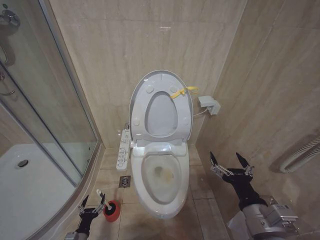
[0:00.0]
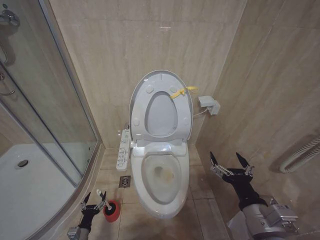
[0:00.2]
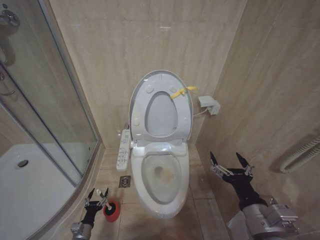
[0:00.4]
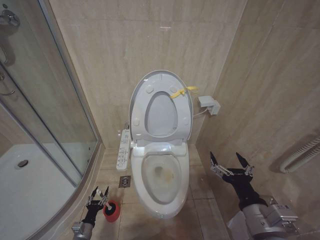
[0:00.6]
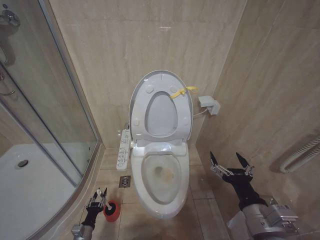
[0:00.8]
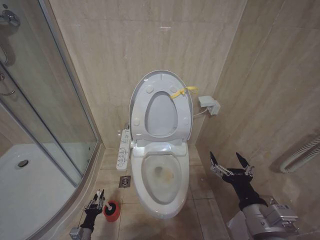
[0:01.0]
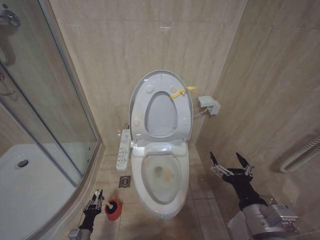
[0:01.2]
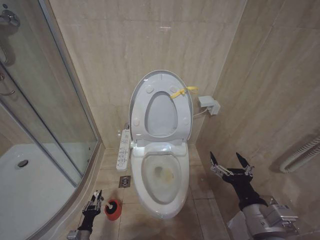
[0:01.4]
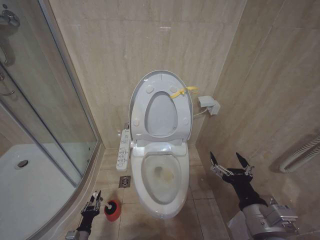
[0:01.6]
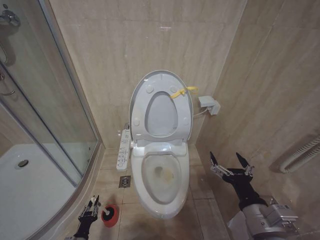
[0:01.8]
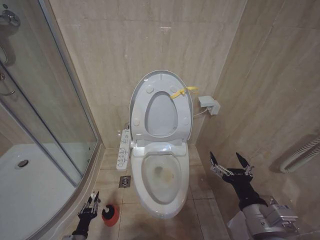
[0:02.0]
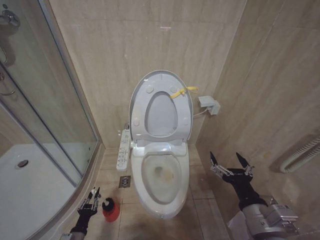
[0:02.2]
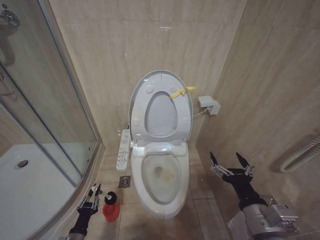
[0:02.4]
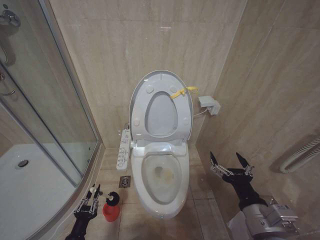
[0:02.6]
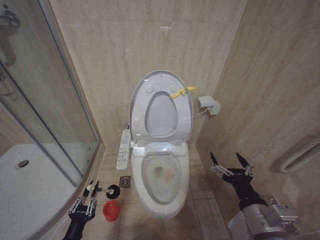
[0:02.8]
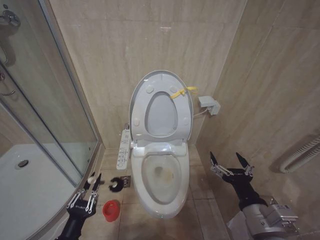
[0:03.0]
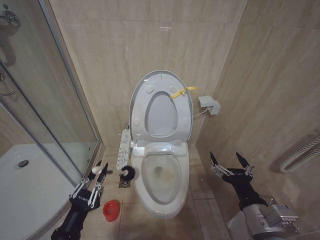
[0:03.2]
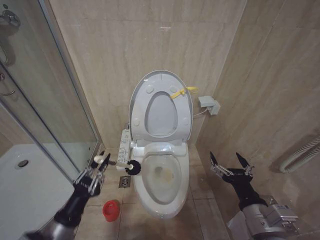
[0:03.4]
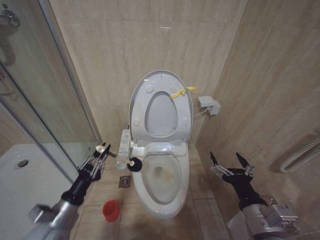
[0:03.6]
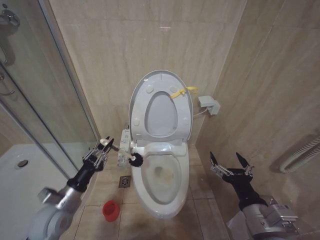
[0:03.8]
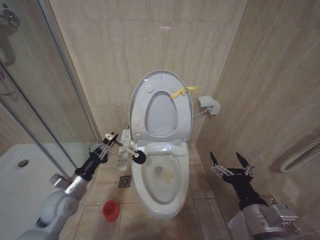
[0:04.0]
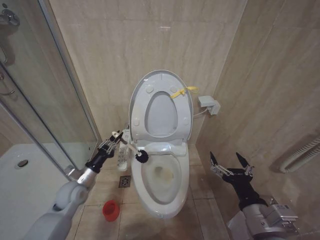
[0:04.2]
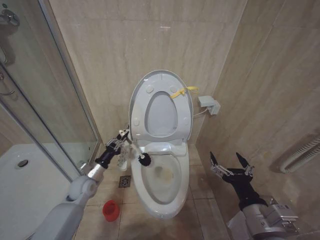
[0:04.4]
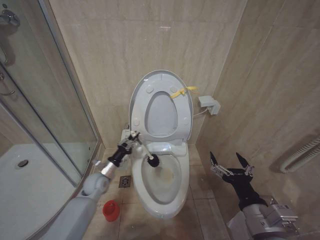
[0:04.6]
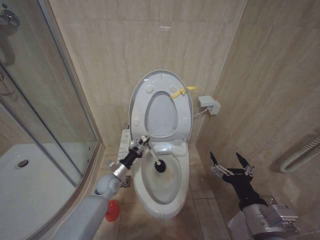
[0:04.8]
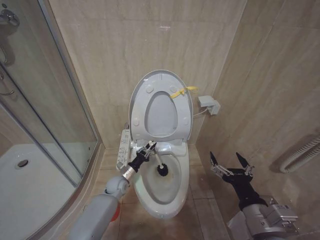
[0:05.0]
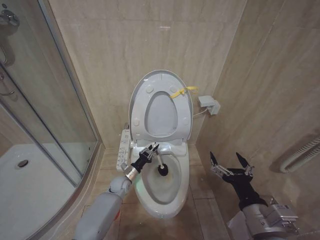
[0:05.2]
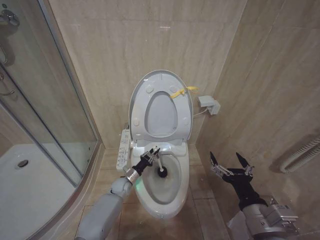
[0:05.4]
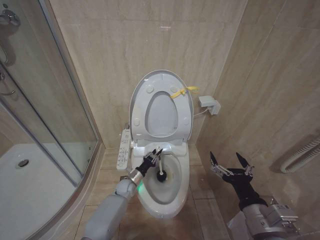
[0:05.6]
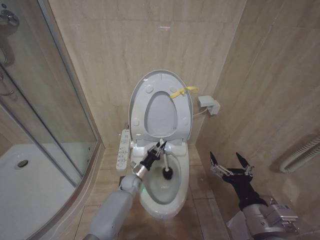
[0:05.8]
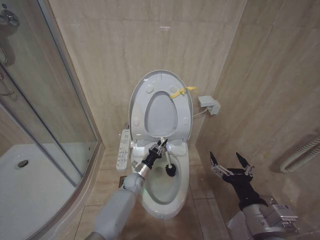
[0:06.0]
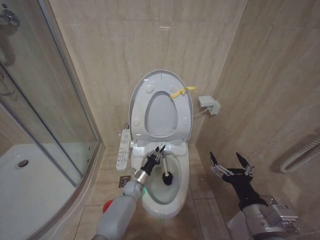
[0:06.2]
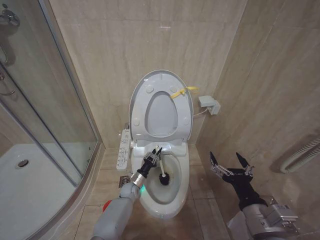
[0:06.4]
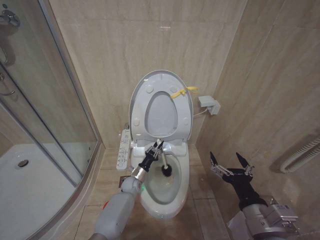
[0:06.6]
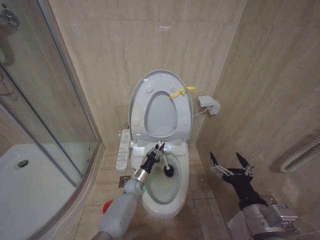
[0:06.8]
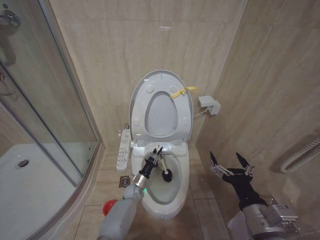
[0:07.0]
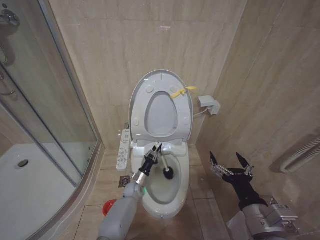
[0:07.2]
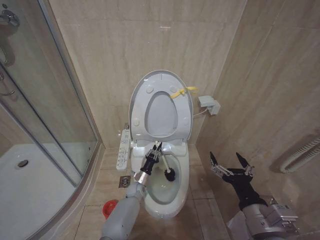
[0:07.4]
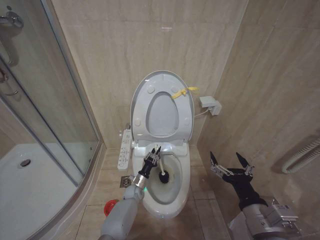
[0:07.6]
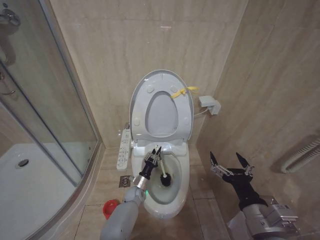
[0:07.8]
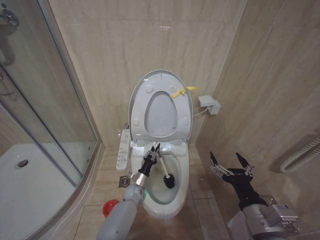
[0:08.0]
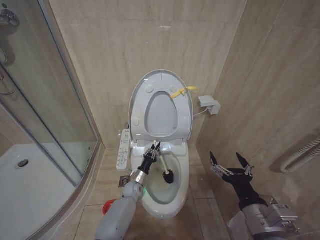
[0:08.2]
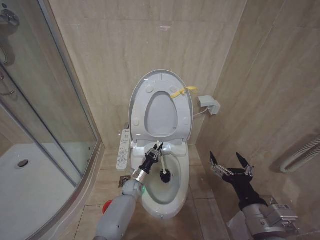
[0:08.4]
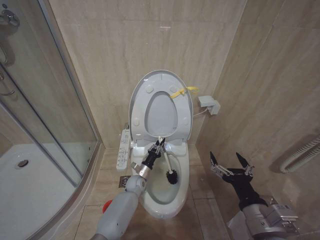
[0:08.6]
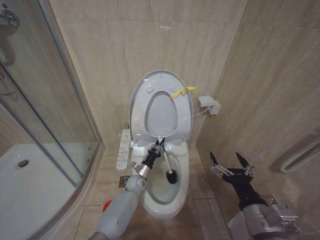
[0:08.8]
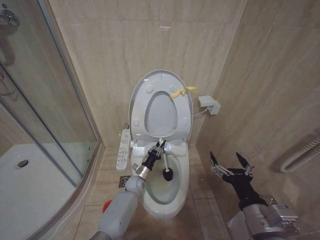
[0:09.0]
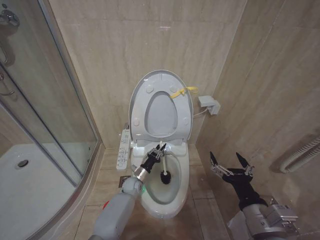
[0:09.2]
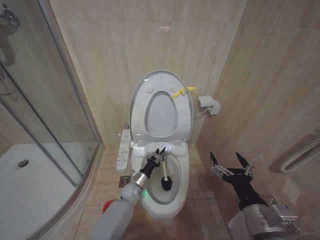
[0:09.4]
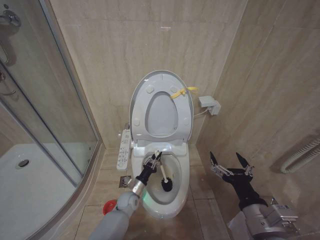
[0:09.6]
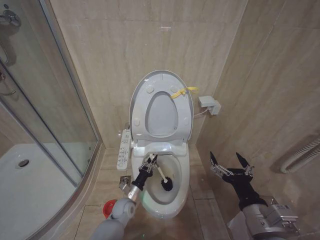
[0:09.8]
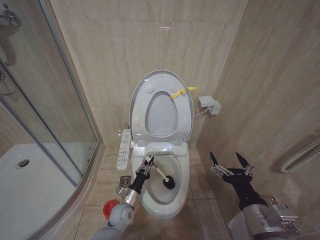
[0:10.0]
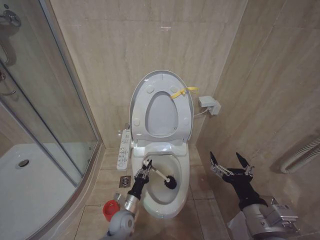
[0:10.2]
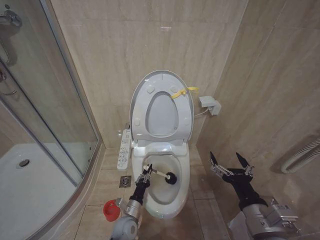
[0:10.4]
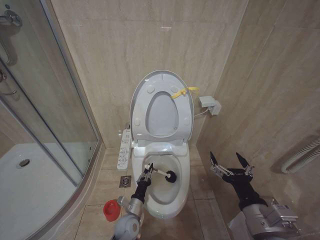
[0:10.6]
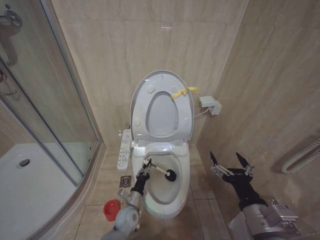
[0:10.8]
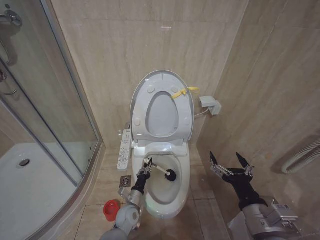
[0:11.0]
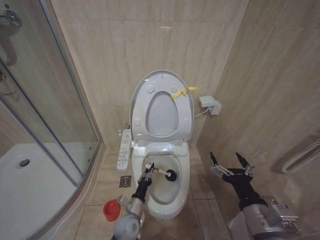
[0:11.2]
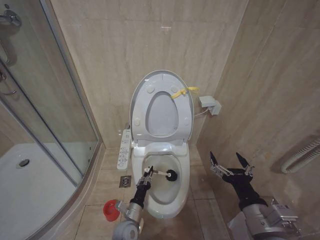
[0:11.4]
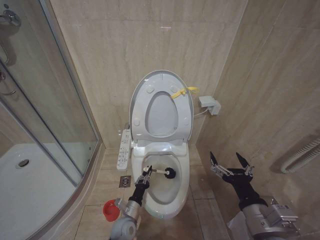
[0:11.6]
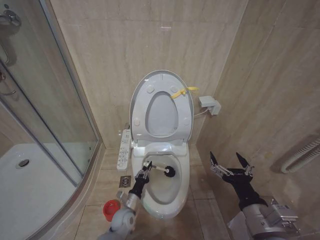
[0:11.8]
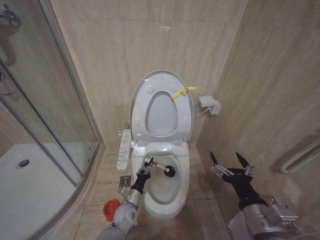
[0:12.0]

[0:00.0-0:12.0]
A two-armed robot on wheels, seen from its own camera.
Task of the whole recording: Open the toilet lid, clean the toilet bowl with a toilet brush, close the toilet lid, and flush.
0:01.6 to 0:03.0: The left gripper goes roughly 25 cm upward and backward.
0:03.0 to 0:04.4: The left gripper moves forward, about 25 cm.
0:04.4 to 0:06.0: The left gripper travels to the right, downward and forward by approximately 25 cm.
0:06.0 to 0:07.6: The left gripper shifts approximately 10 cm downward.
0:07.6 to 0:09.0: The left gripper is displaced upward by about 5 cm.
0:09.0 to 0:10.4: The left gripper travels backward by approximately 15 cm.
0:10.4 to 0:12.0: The left gripper swings forward and backward, roughly 5 cm each way, with 2 reversals.

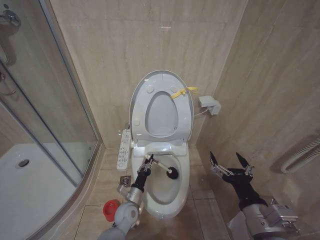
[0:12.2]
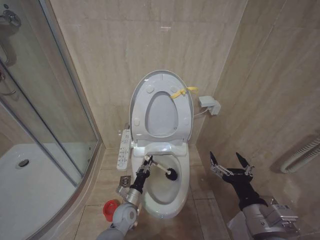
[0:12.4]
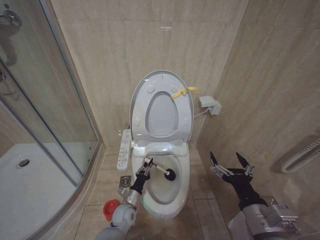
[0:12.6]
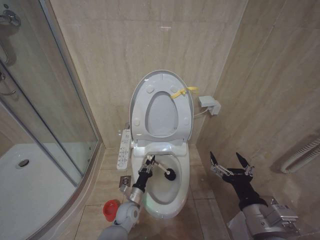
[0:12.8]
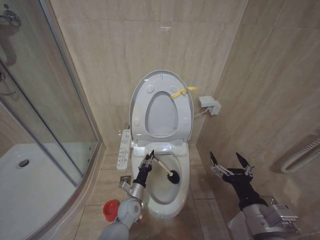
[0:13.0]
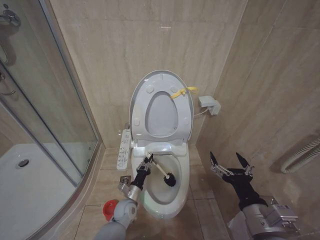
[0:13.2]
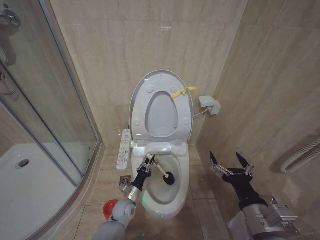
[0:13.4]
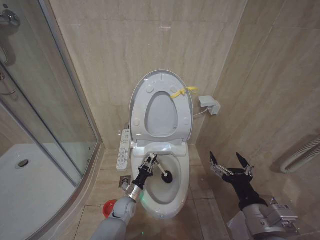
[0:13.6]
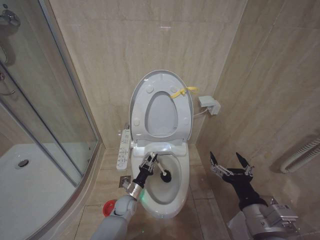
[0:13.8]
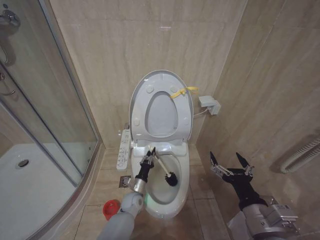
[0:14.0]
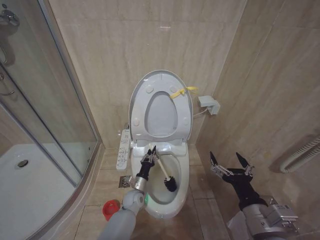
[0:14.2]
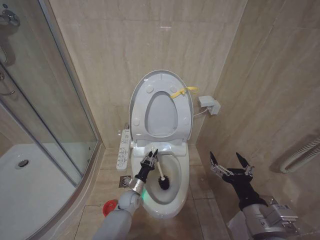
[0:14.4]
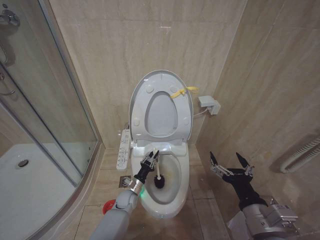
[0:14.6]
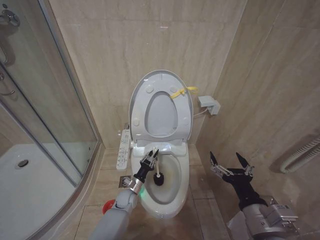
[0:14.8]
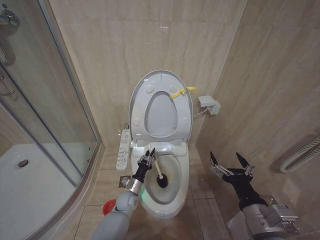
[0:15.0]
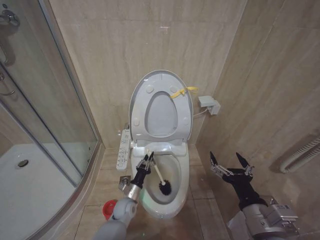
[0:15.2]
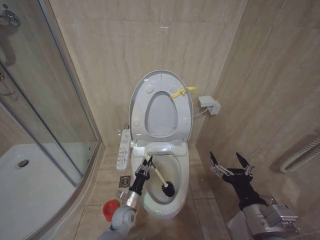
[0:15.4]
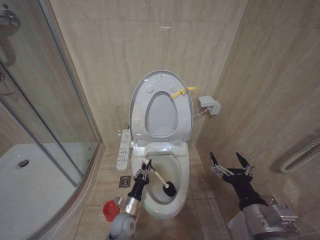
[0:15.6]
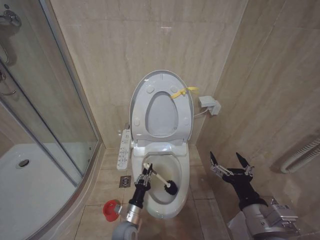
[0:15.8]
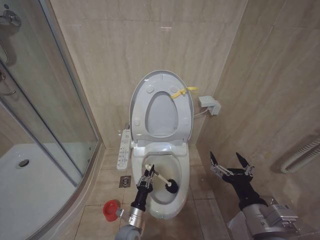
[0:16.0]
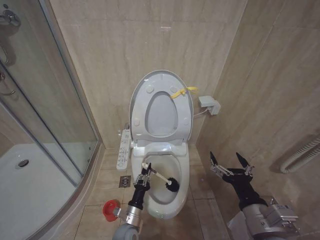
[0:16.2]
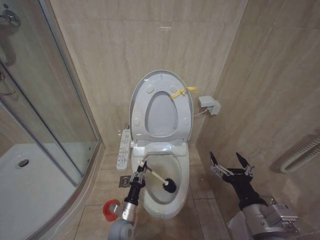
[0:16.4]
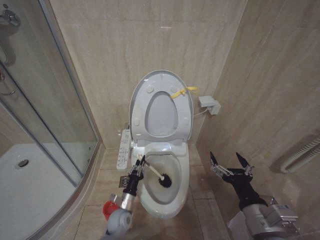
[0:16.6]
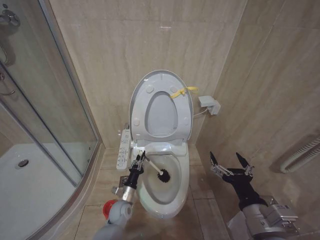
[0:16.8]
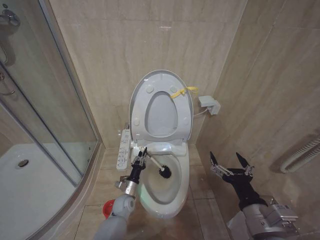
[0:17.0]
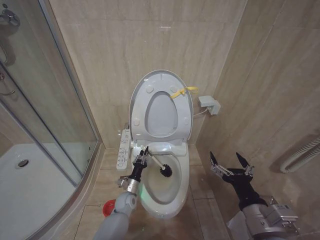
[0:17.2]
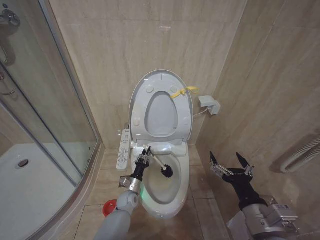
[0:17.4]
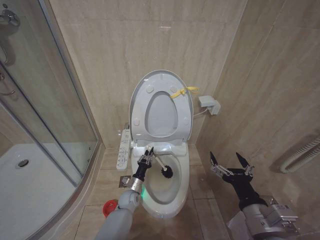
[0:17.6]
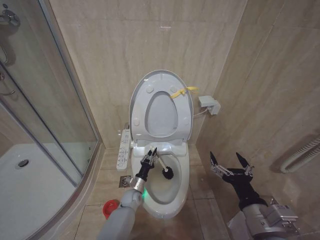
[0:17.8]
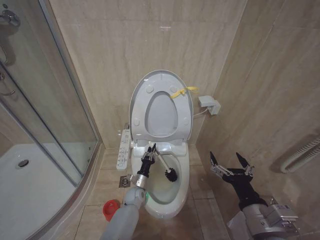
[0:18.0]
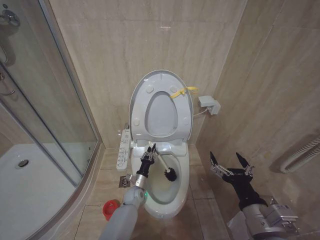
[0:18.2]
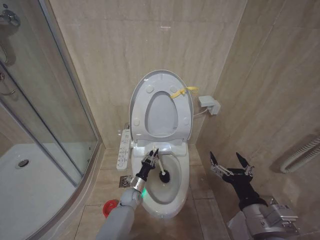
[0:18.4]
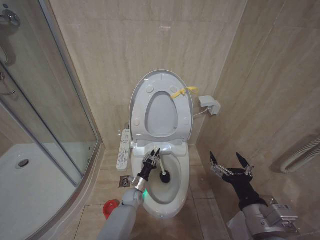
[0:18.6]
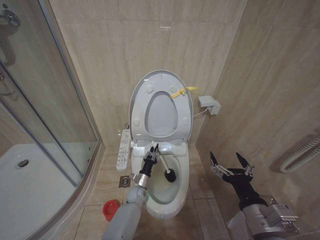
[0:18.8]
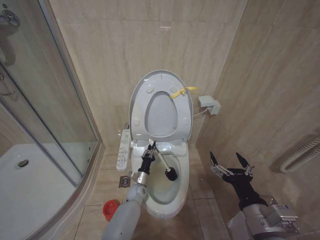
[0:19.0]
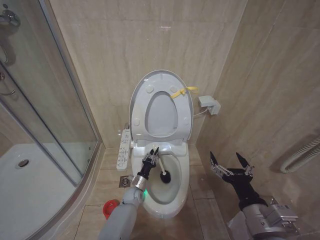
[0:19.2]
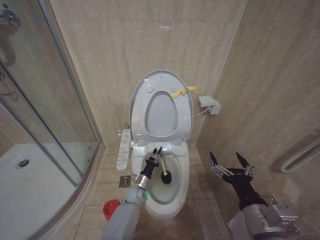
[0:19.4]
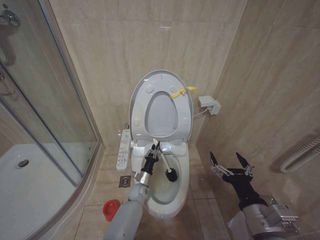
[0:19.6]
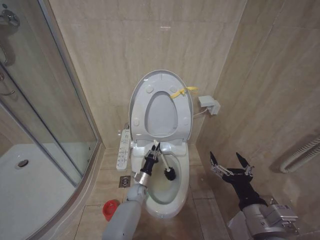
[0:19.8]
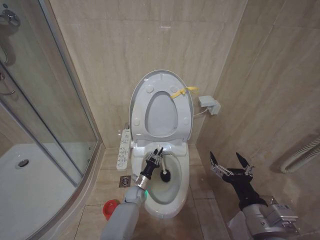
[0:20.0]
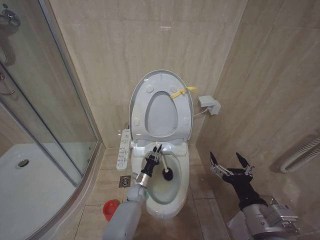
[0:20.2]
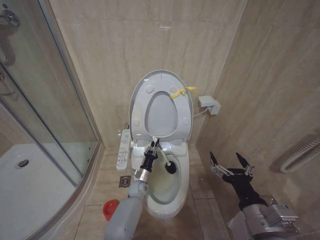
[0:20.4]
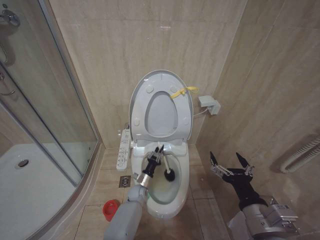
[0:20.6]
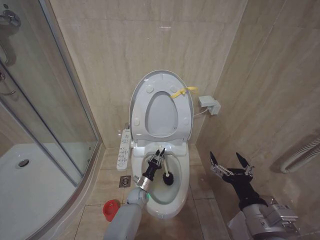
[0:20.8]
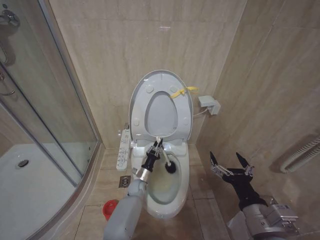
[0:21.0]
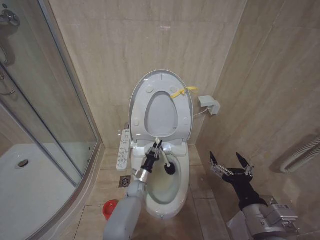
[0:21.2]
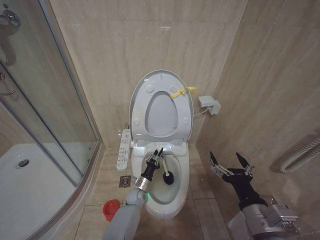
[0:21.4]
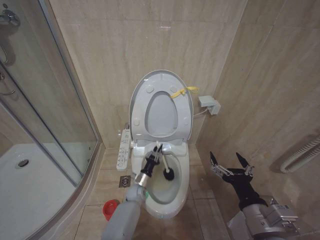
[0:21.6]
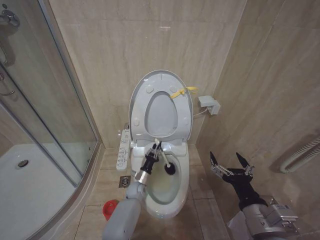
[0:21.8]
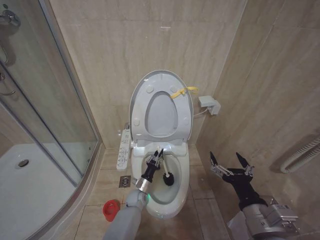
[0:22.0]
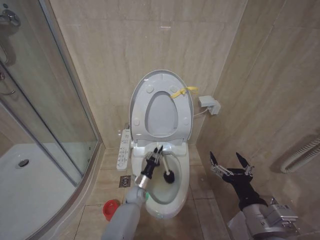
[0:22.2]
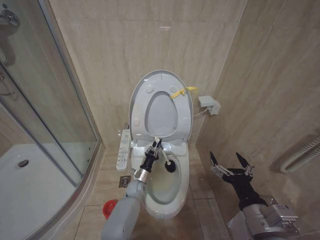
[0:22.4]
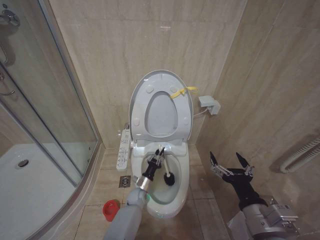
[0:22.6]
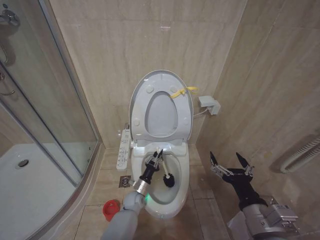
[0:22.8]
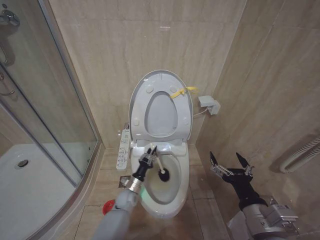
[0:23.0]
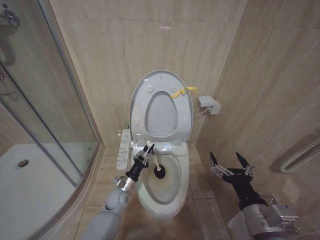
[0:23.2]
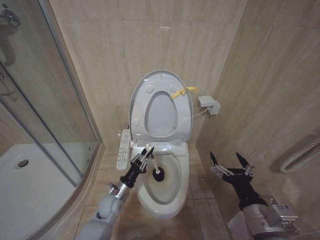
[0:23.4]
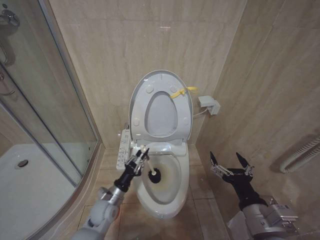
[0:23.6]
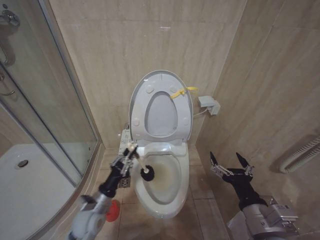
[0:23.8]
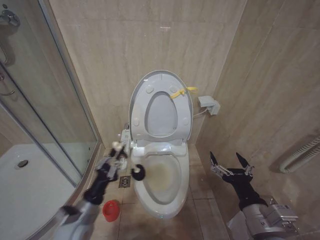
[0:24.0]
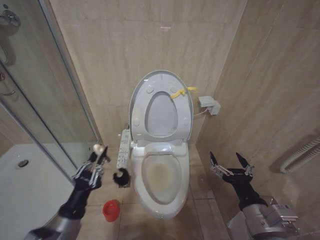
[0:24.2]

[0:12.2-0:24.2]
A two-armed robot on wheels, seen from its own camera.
Task of the whole recording: Open the toilet lid, clean the toilet bowl with a toilet brush, close the toilet lid, and flush.
0:12.2 to 0:13.8: The left gripper moves about 5 cm.
0:15.2 to 0:16.6: The left gripper shifts about 5 cm backward.
0:16.6 to 0:18.2: The left gripper heads forward and to the right, covering some 15 cm.
0:21.2 to 0:22.6: The grippers make only small movements.
0:22.6 to 0:24.2: The left gripper travels backward, upward and to the left by some 35 cm.
